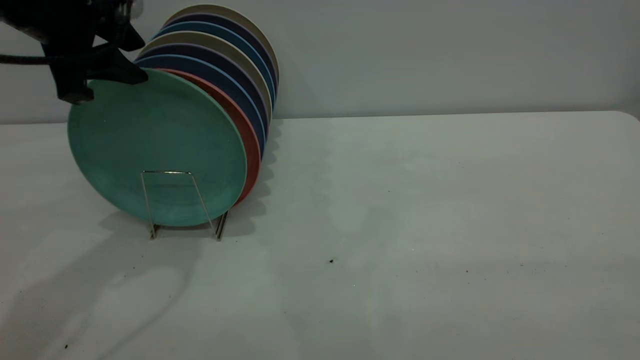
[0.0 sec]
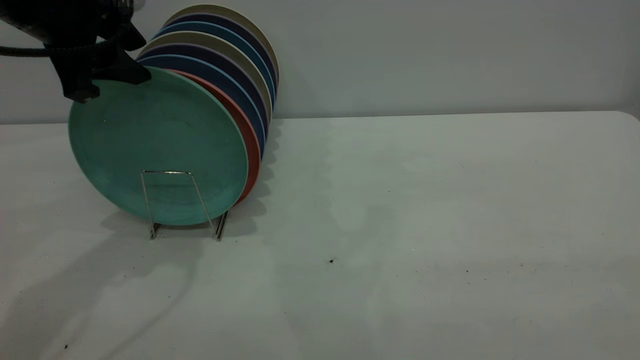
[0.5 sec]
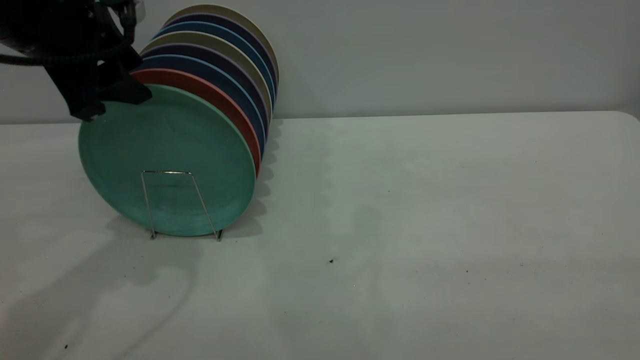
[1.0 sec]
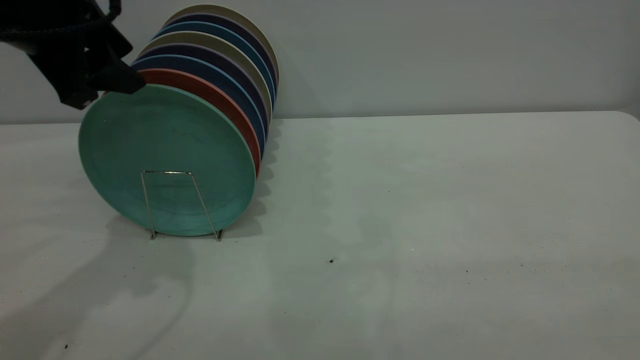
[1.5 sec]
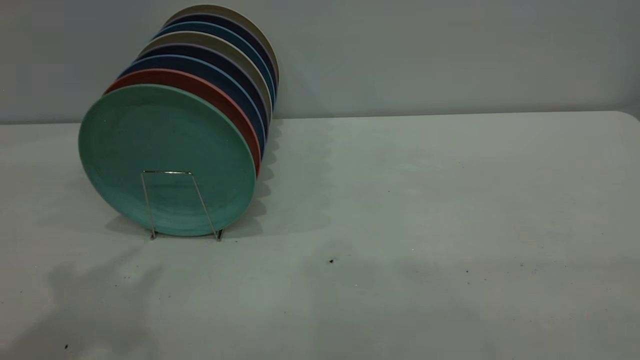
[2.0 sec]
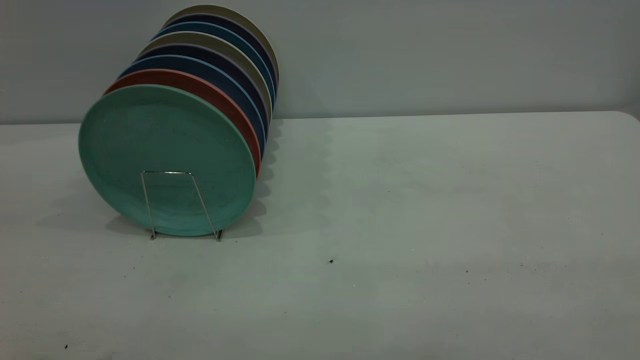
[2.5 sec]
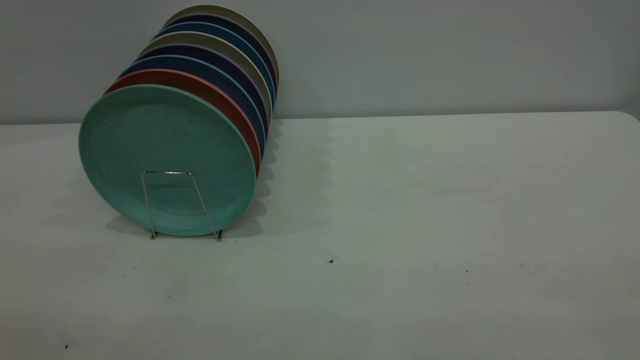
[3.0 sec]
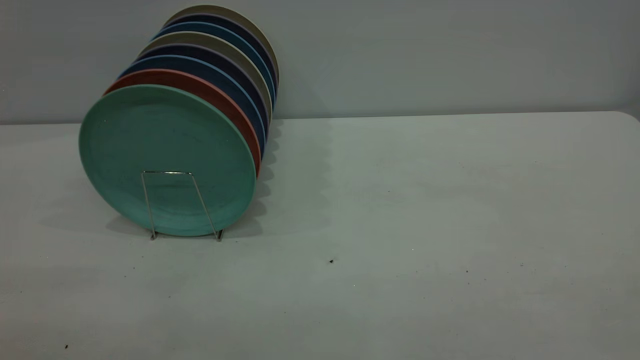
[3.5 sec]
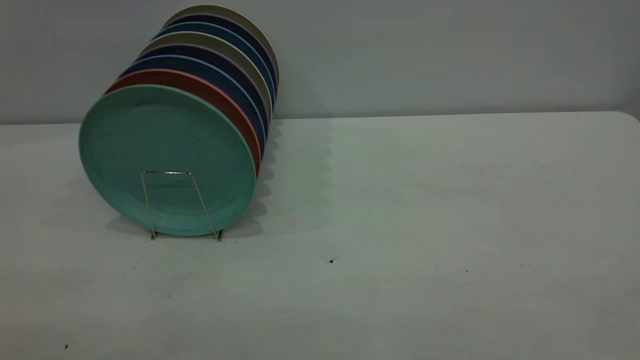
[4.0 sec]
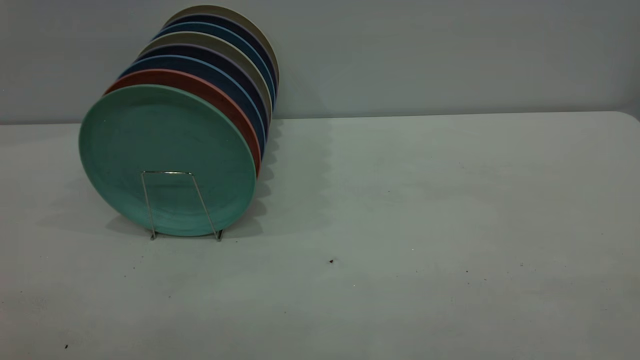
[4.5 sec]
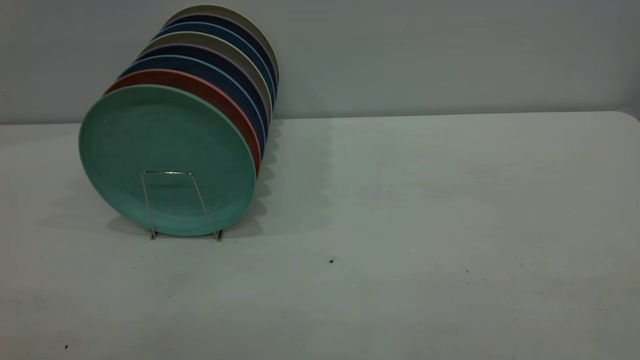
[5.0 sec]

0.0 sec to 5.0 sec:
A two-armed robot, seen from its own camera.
Task of the whole recording: the right gripper grasp the green plate, the right gripper pass the green plate to the left gripper, and the left gripper place the green plate on the plate rack.
0.0 sec to 2.5 sec: The left gripper goes roughly 25 cm backward and upward.

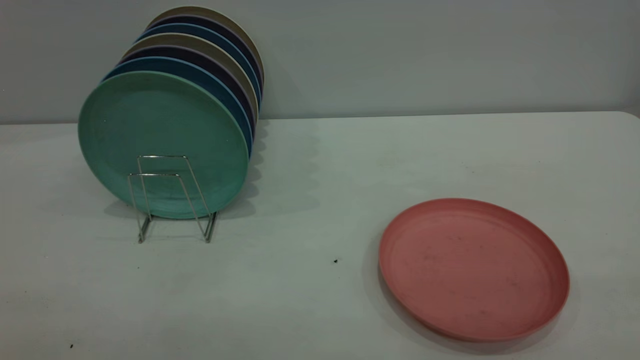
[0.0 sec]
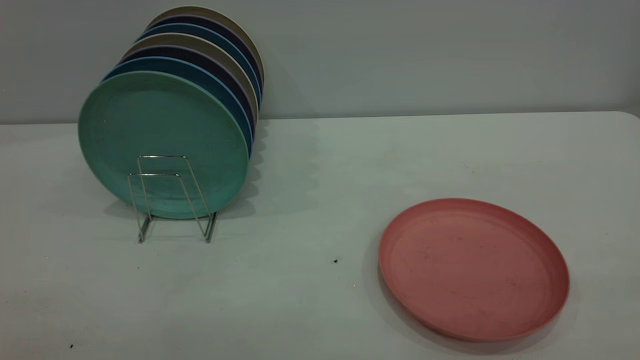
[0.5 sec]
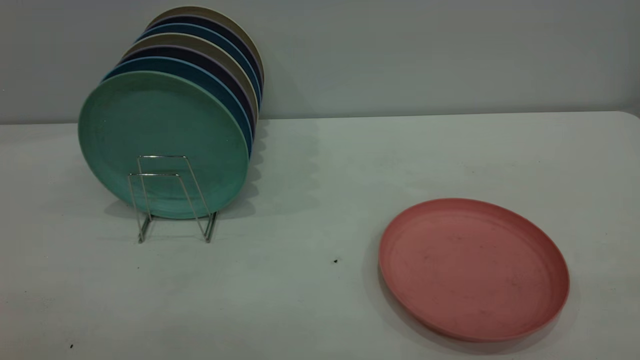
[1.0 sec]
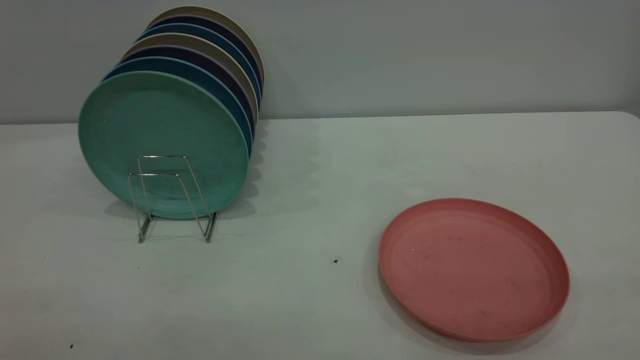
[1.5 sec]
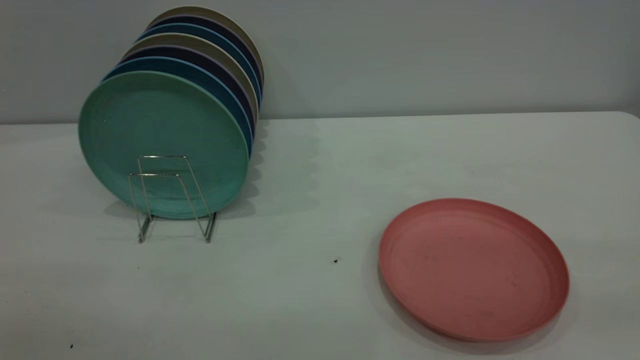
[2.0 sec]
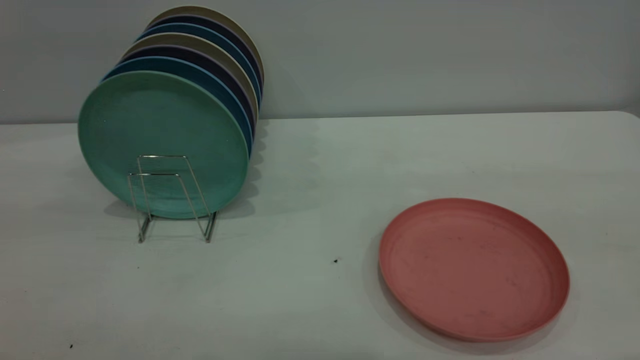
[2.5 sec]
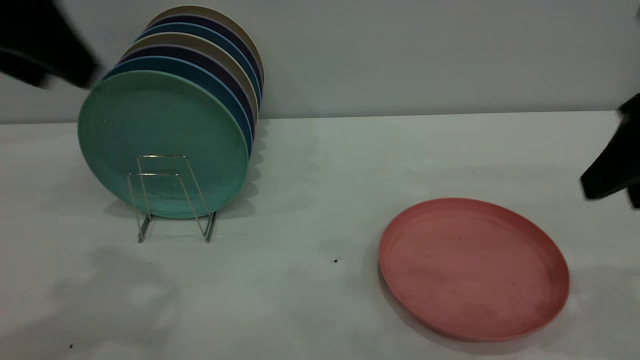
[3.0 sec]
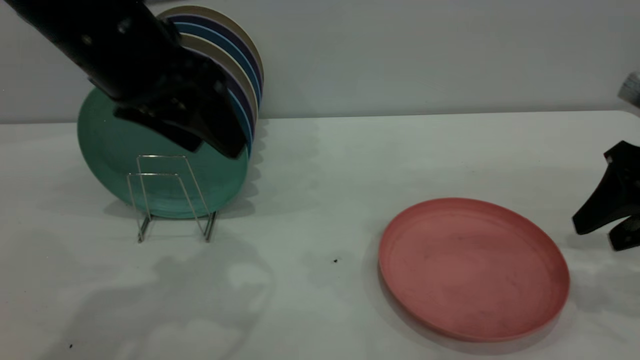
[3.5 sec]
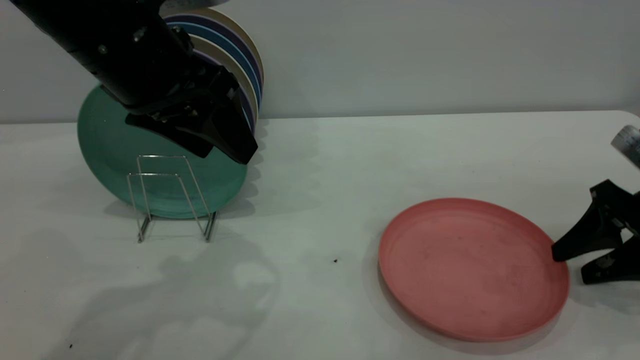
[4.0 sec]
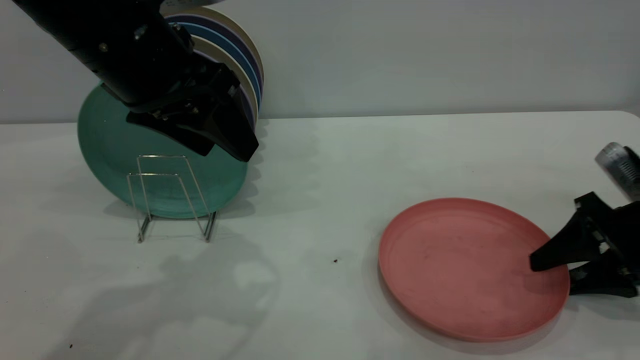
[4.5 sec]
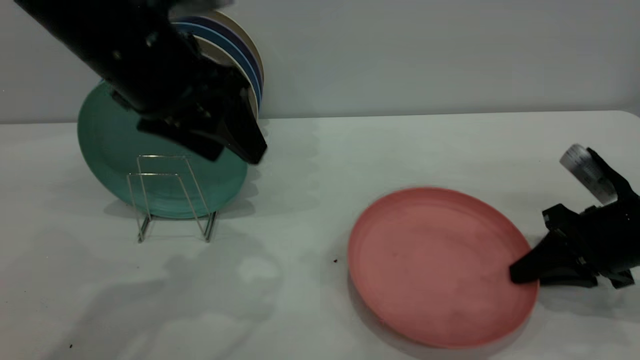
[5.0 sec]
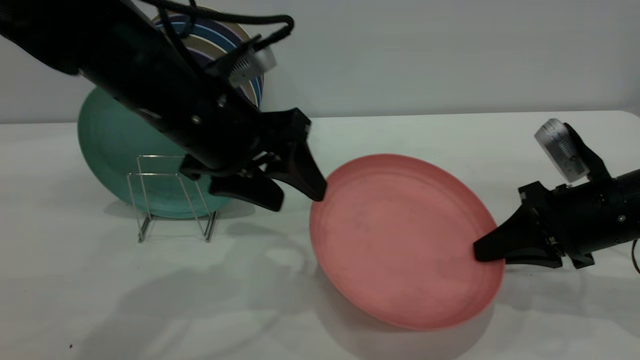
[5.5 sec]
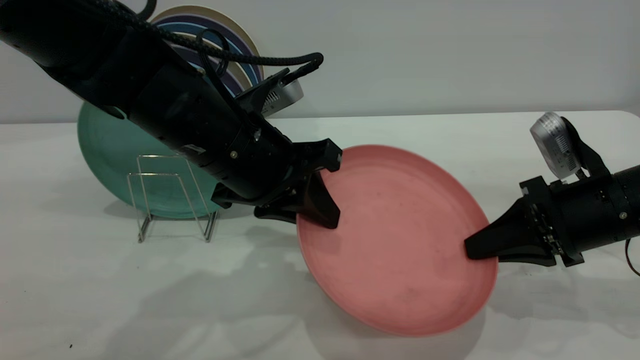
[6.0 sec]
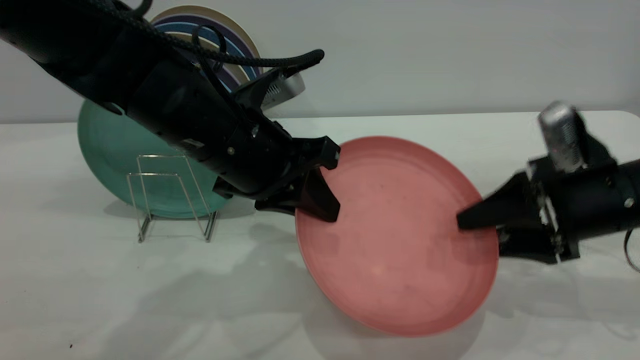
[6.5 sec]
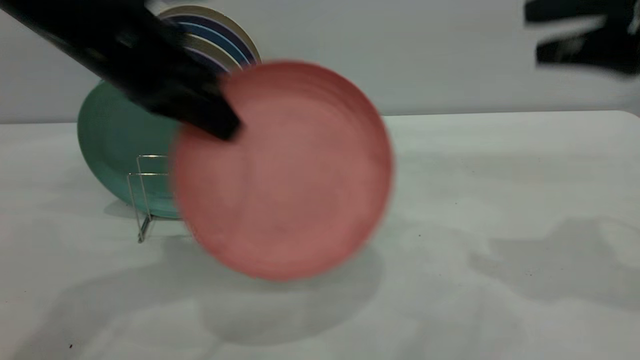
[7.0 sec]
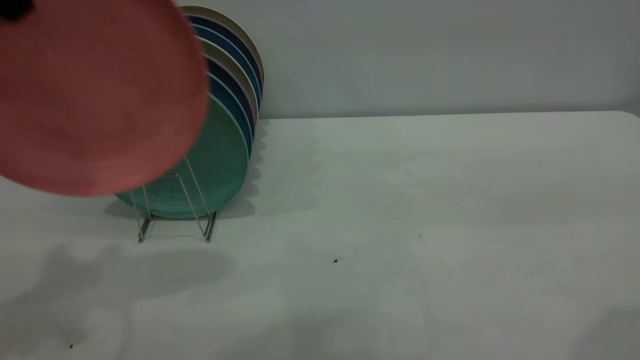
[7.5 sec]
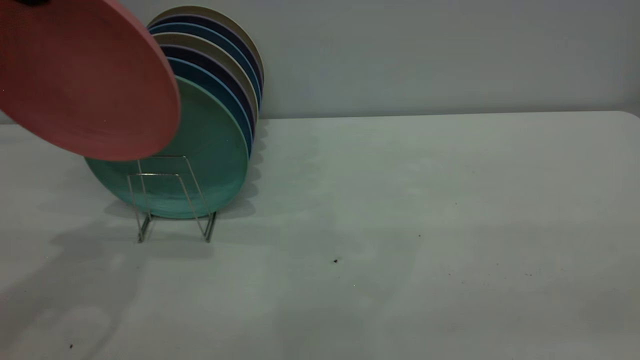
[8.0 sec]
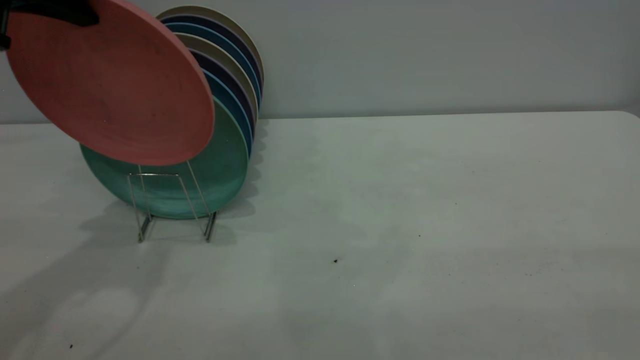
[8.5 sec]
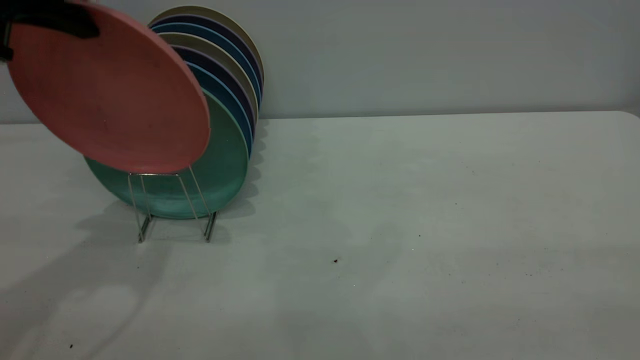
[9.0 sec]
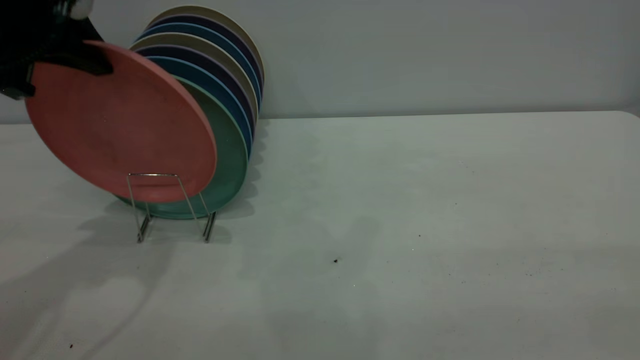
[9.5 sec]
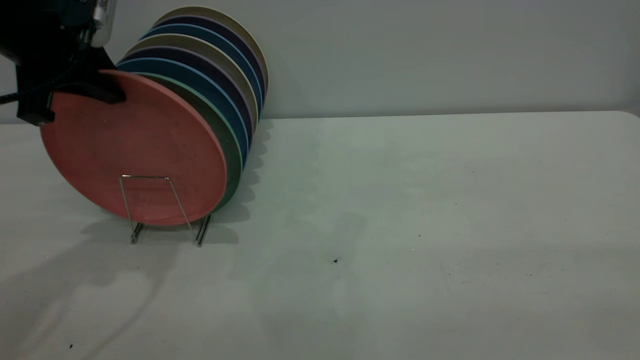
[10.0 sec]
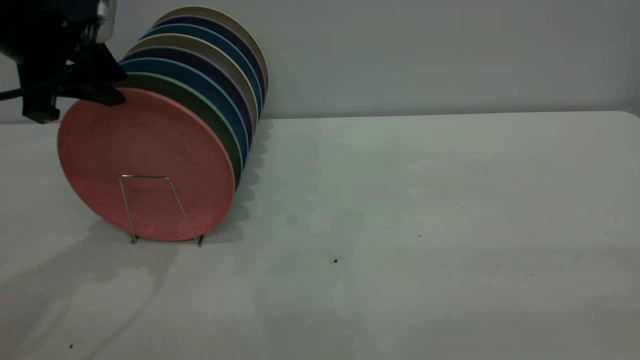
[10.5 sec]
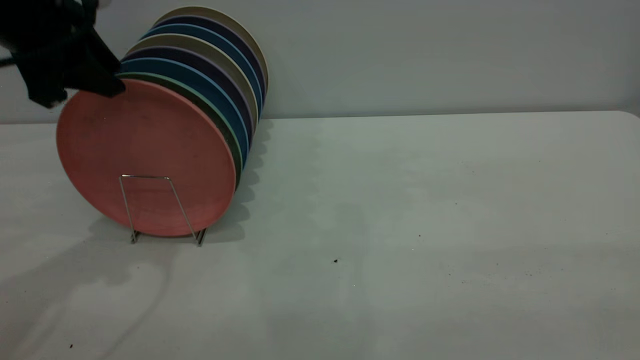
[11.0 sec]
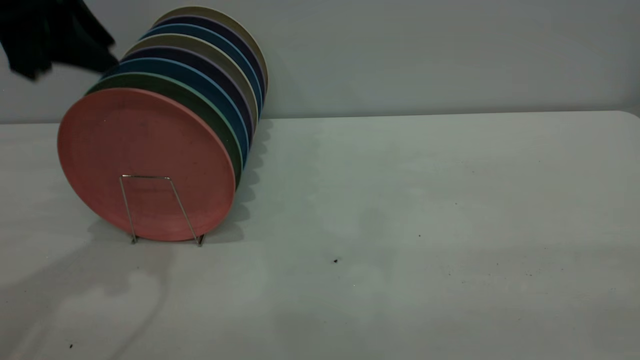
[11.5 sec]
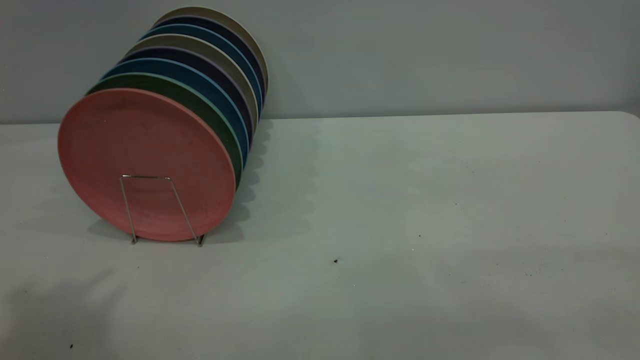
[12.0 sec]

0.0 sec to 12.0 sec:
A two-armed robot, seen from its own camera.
Task of the whole recording: the right gripper grasp the pink plate, the right gripper pass the pink plate to the left gripper, and the left gripper place the pink plate on the plate rack.
Step, 0.0 sec to 5.0 sec: Pick up the plate with the right gripper.
Step, 5.5 sec to 6.5 sec: Pass the plate from the right gripper to the left gripper.
Step, 7.5 sec to 11.5 sec: Place the plate on the shelf.
2.0 sec to 4.0 sec: The right gripper goes some 40 cm forward and downward, while the left gripper travels forward and to the right by some 35 cm.
4.0 sec to 6.0 sec: The right gripper heads to the left, covering some 10 cm, and closes its fingers; the left gripper heads downward and to the right, covering about 10 cm, and closes its fingers.
6.0 sec to 8.0 sec: The right gripper travels backward and upward by roughly 35 cm, and opens up. Meanwhile the left gripper is displaced upward and to the left by approximately 25 cm.
8.0 sec to 10.0 sec: The left gripper travels downward by about 10 cm.
10.0 sec to 12.0 sec: The left gripper moves upward and backward, some 25 cm.
